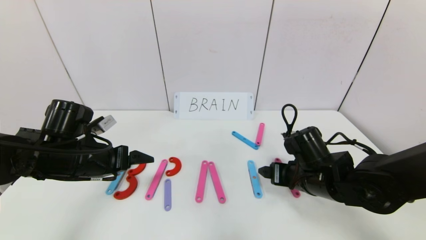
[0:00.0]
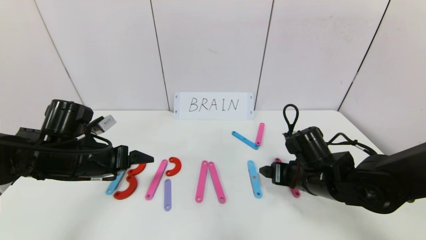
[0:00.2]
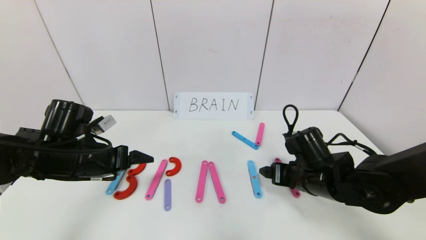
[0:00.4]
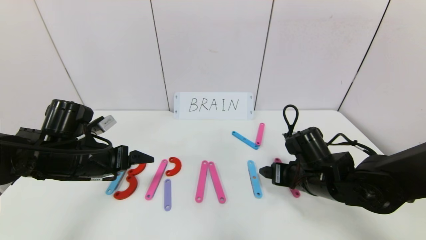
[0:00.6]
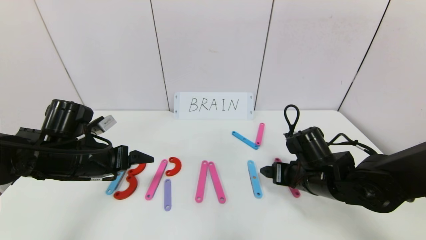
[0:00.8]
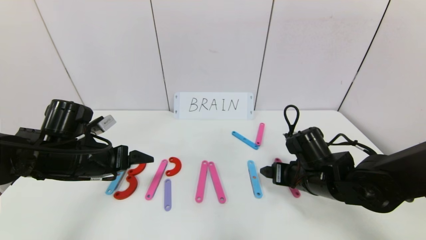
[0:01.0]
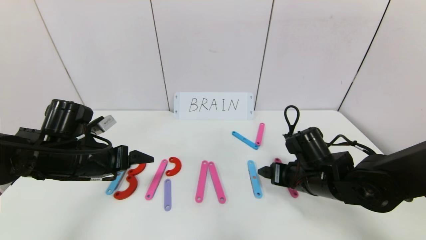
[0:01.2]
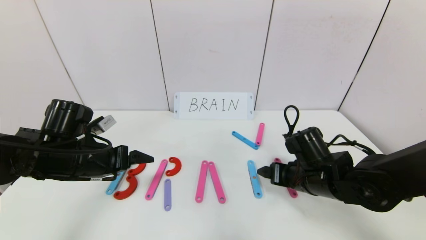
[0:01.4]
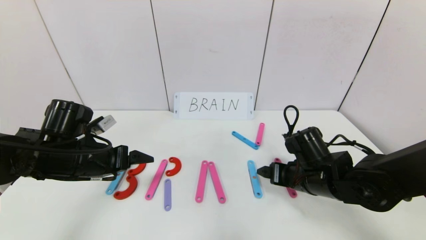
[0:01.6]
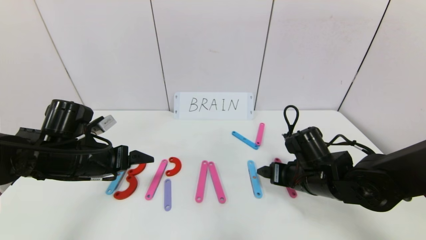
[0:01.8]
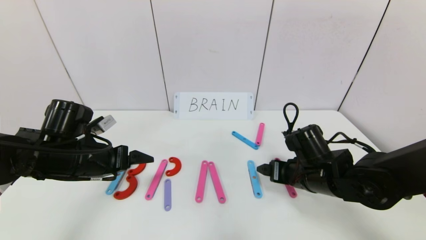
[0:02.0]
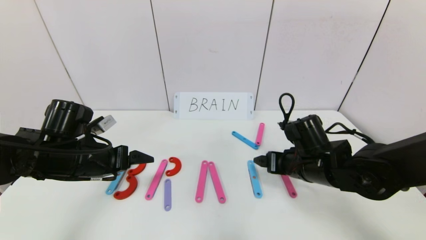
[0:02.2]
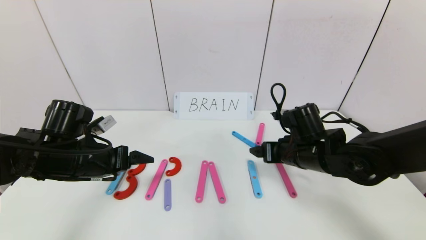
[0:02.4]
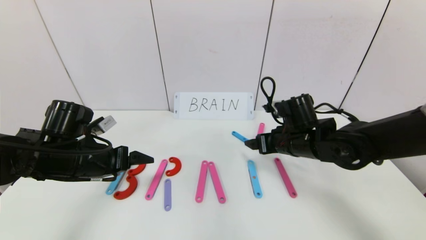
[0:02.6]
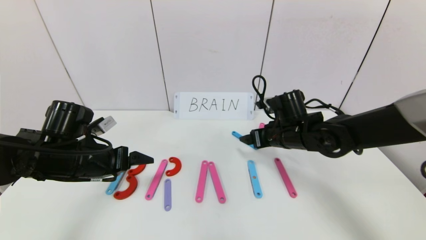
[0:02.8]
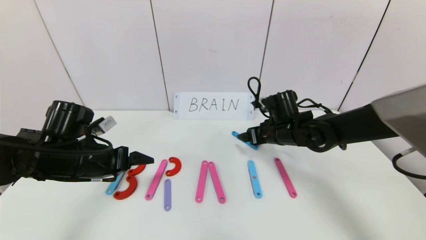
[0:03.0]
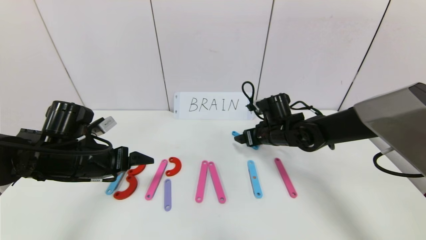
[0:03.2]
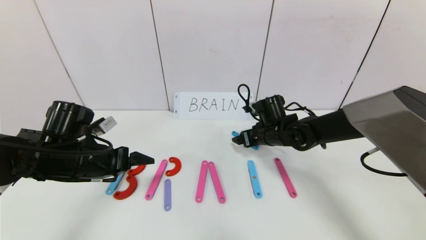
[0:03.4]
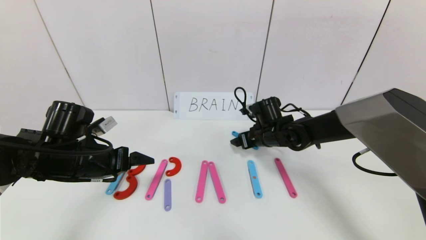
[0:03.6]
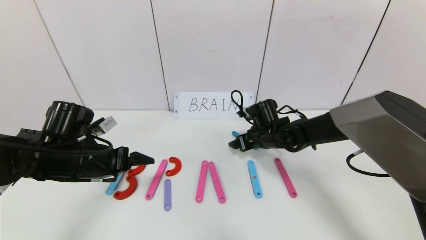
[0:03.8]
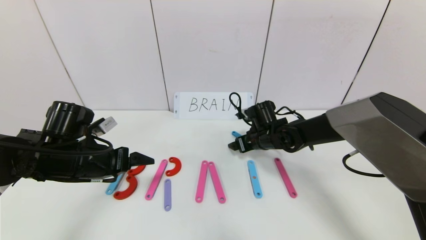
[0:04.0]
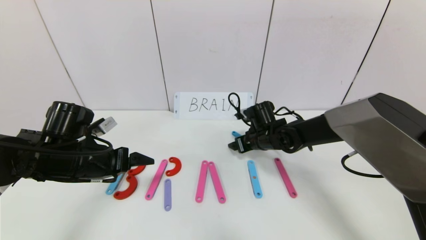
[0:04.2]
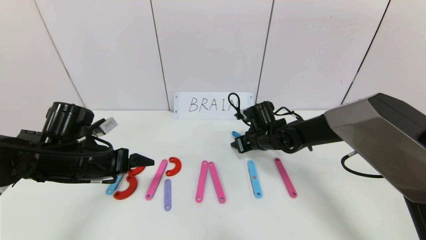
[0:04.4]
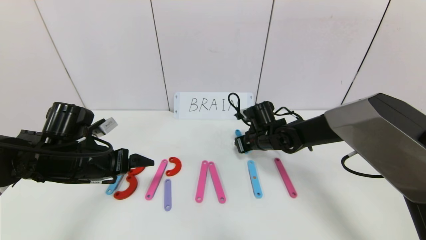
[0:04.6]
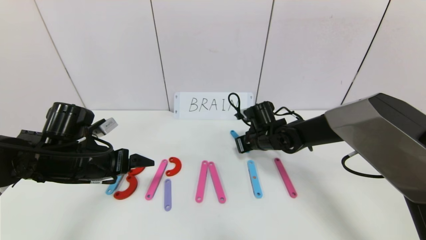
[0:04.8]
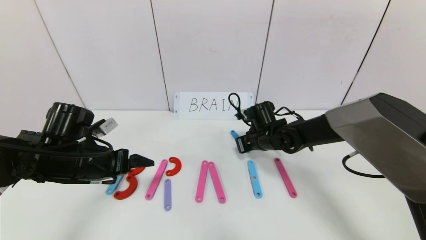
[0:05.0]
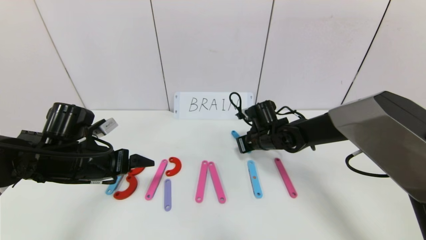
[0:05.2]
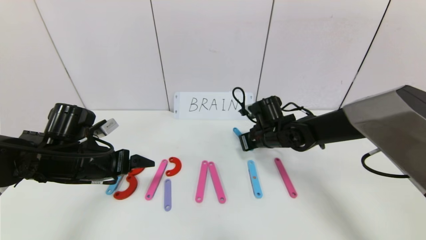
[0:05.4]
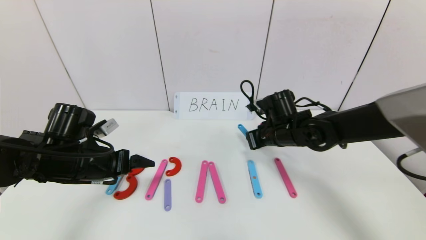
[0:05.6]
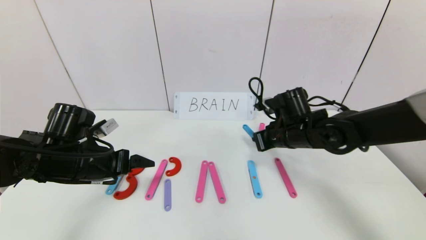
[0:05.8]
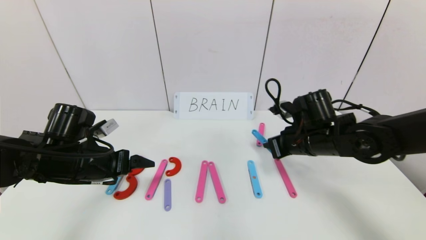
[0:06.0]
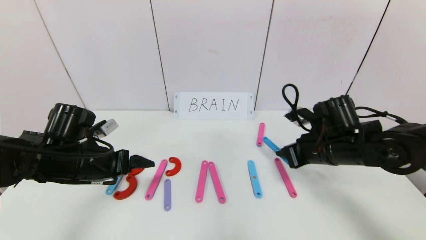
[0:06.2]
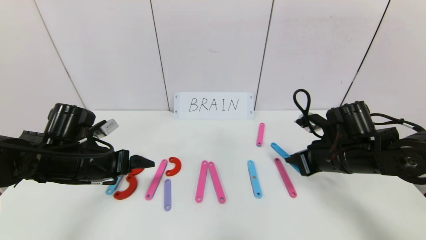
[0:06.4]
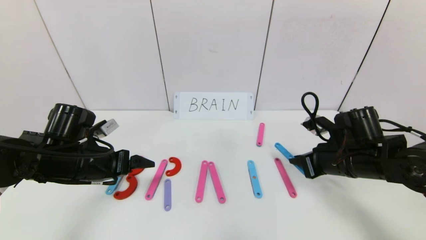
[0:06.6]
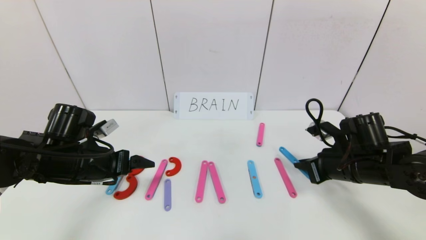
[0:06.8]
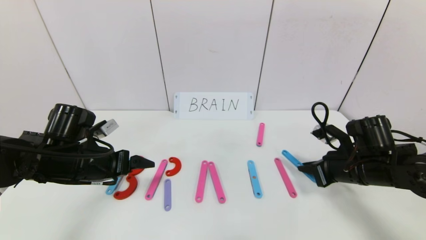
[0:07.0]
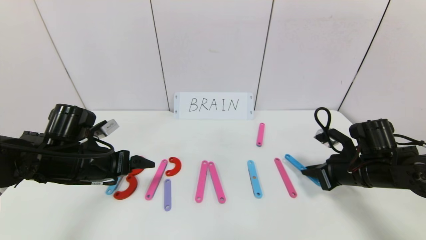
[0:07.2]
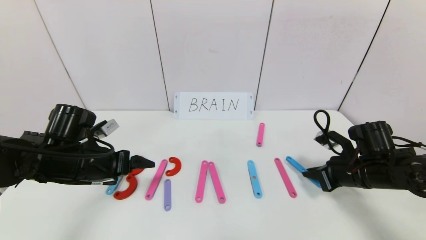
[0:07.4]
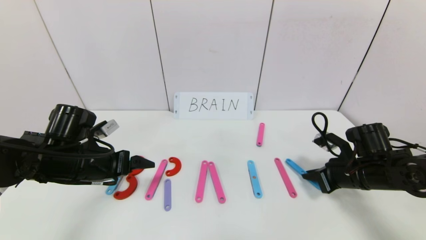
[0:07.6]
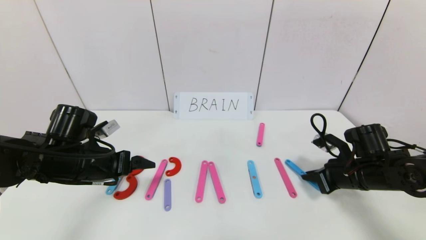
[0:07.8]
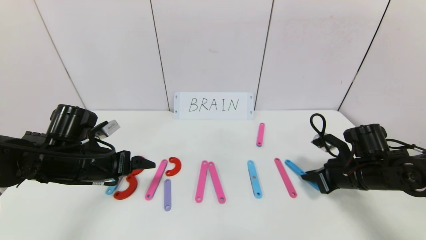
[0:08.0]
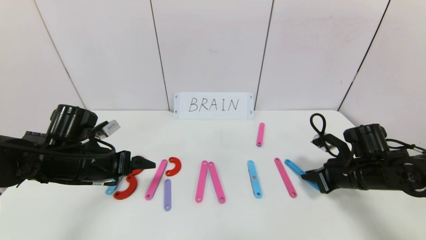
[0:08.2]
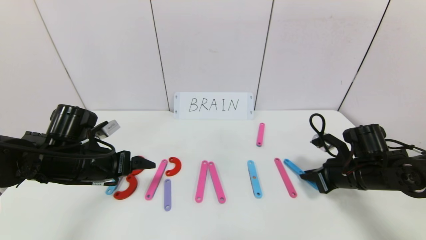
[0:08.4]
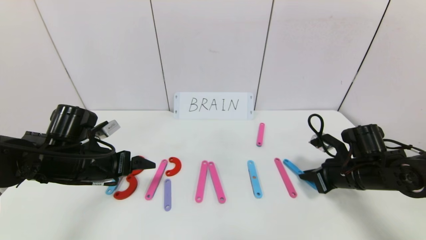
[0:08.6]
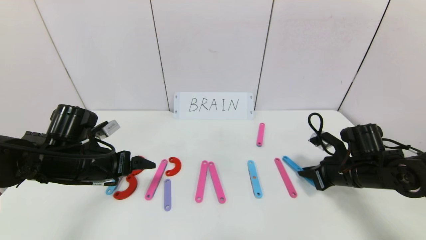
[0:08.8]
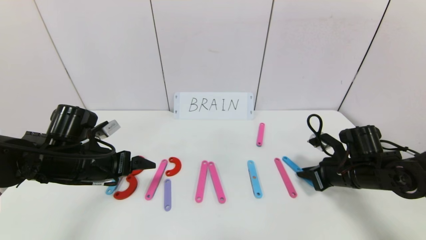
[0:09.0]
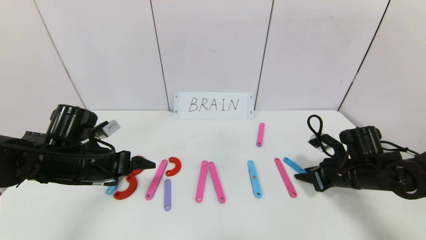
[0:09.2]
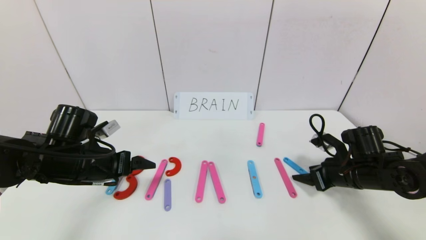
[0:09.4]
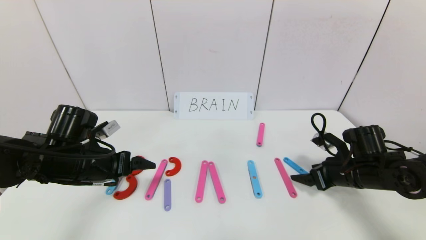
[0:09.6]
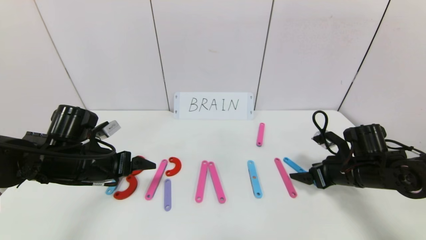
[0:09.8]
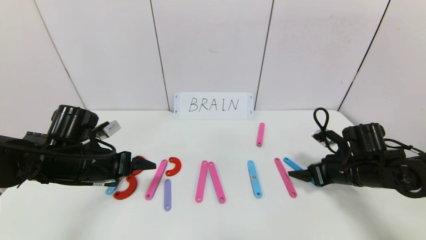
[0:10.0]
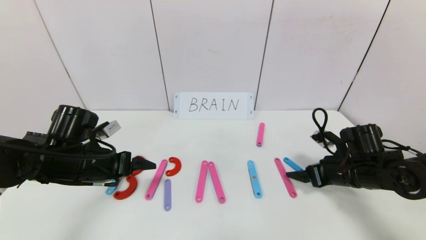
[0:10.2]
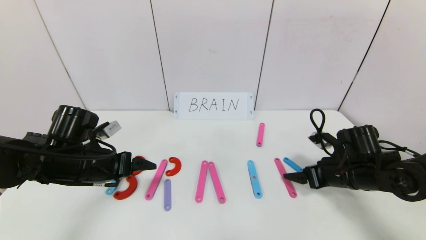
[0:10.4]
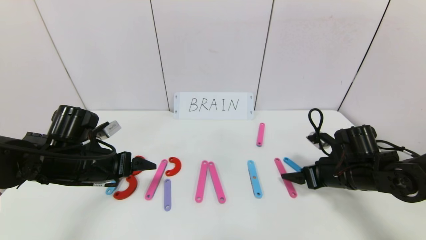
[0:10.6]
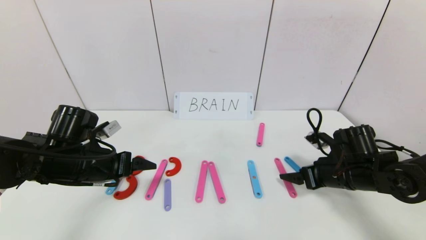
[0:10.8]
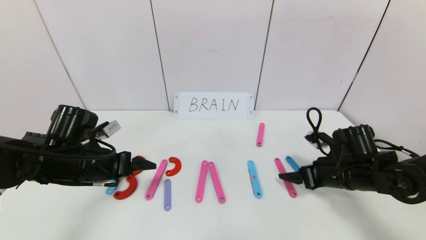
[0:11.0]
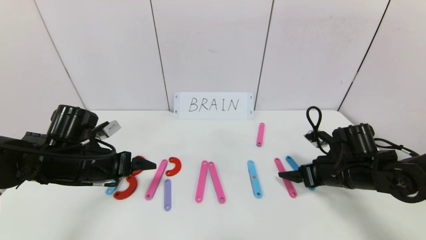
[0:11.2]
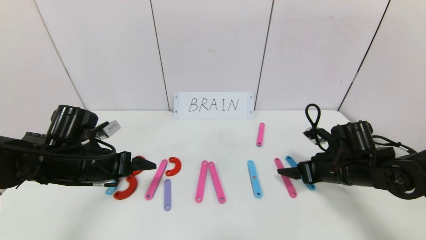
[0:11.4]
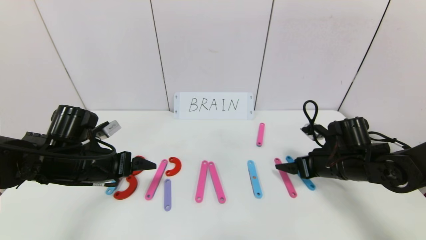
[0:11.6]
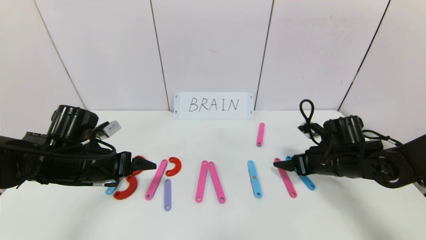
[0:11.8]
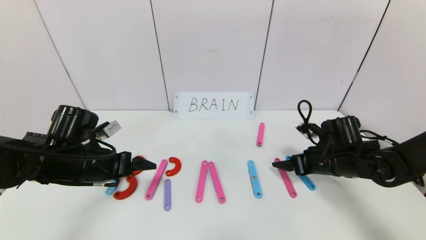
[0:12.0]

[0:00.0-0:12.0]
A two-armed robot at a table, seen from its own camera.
Task of the whole recording: rearrange the word baai as brain.
0:00.0 to 0:01.6: The two grippers keep their place.
0:01.6 to 0:03.0: The right gripper shifts roughly 10 cm forward.
0:03.0 to 0:04.4: The right gripper changes place by some 5 cm, and closes.
0:04.4 to 0:06.0: The right gripper shifts approximately 15 cm backward, to the right and upward, and closes its fingers.
0:06.0 to 0:07.6: The right gripper travels to the right and downward by approximately 10 cm.
0:07.6 to 0:09.0: The grippers make only small movements.
0:09.0 to 0:10.4: The right gripper opens up.
0:10.4 to 0:12.0: The grippers make only small movements.

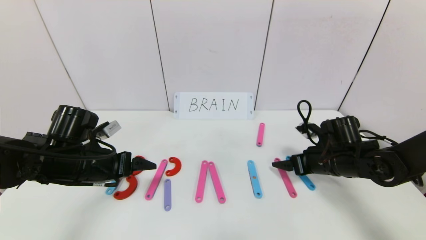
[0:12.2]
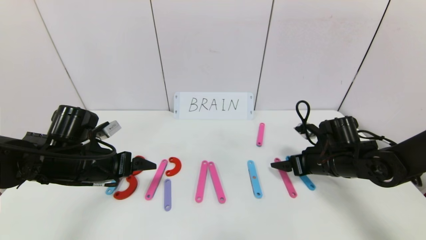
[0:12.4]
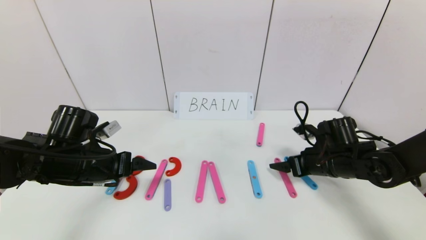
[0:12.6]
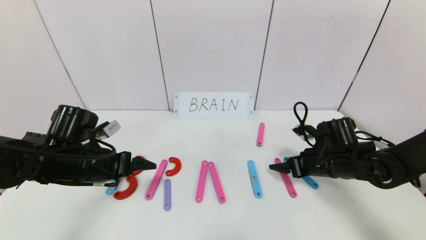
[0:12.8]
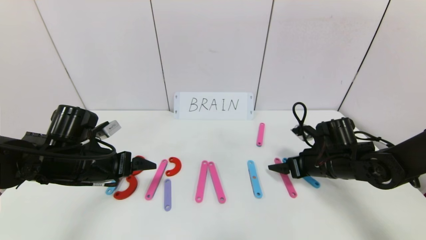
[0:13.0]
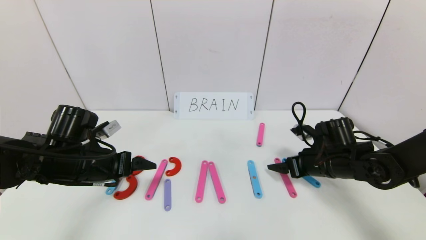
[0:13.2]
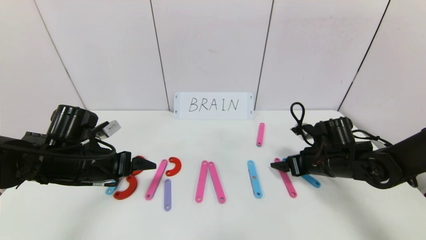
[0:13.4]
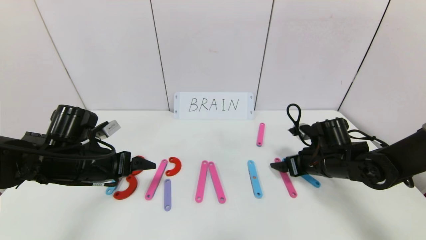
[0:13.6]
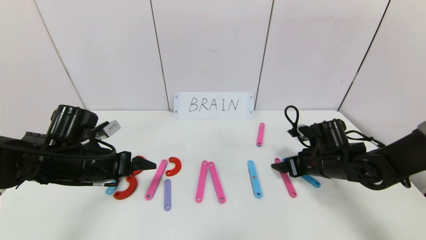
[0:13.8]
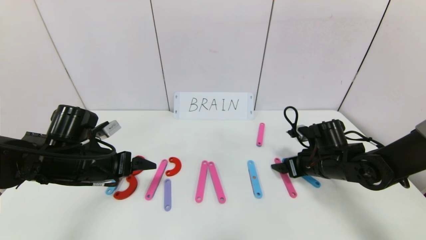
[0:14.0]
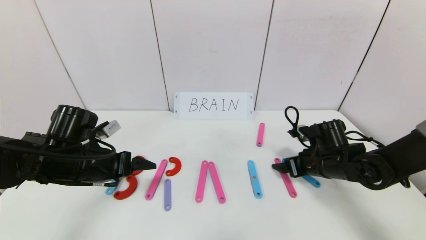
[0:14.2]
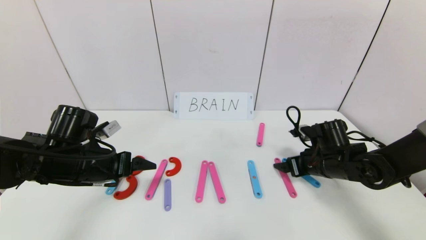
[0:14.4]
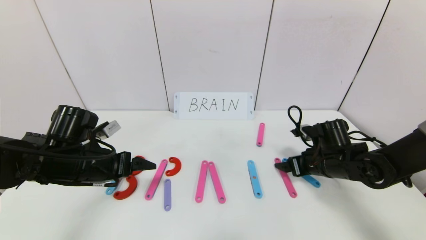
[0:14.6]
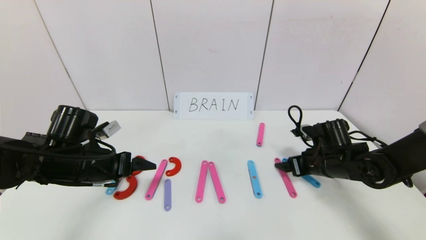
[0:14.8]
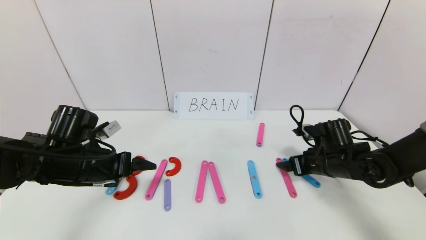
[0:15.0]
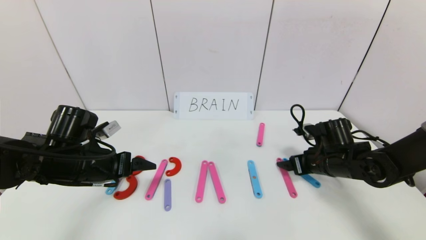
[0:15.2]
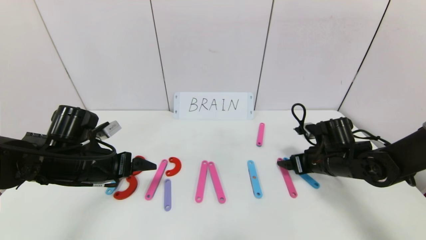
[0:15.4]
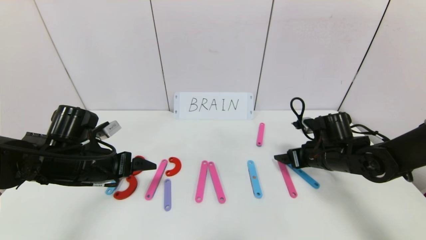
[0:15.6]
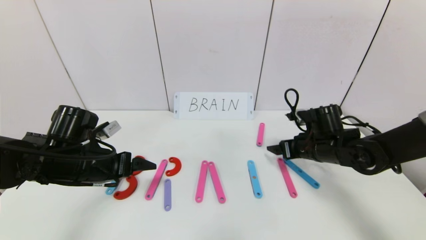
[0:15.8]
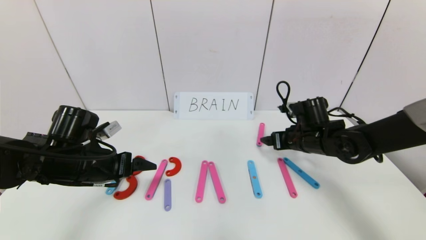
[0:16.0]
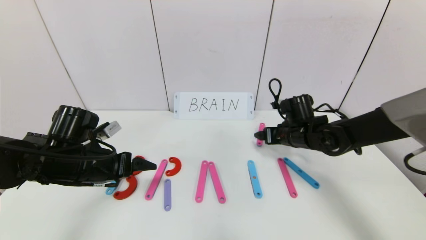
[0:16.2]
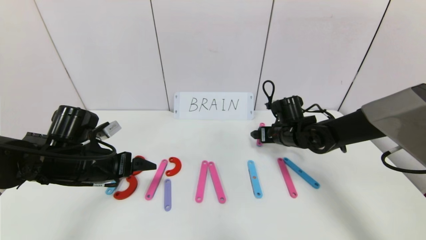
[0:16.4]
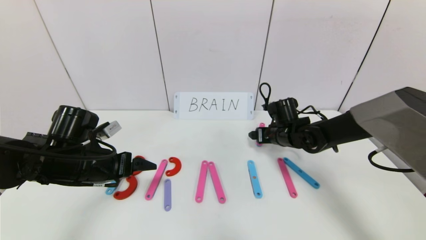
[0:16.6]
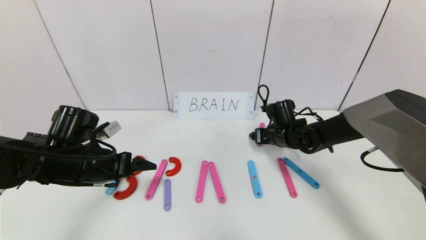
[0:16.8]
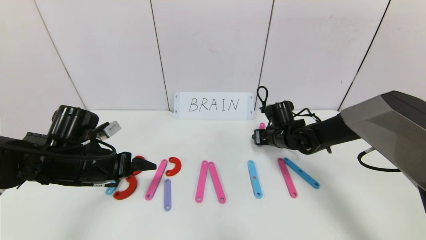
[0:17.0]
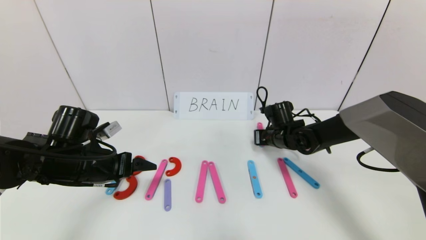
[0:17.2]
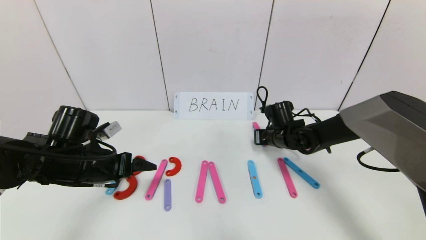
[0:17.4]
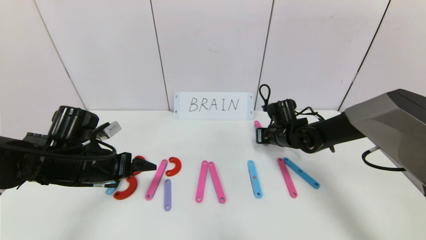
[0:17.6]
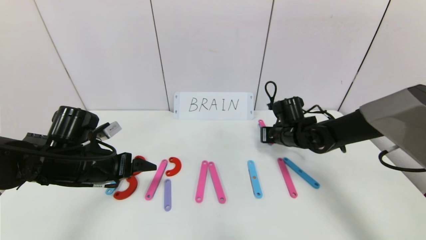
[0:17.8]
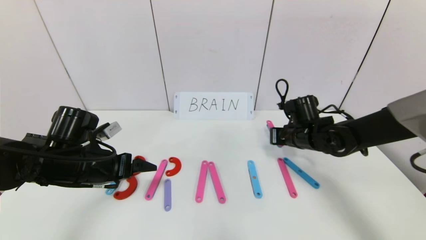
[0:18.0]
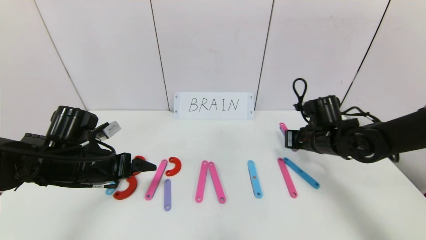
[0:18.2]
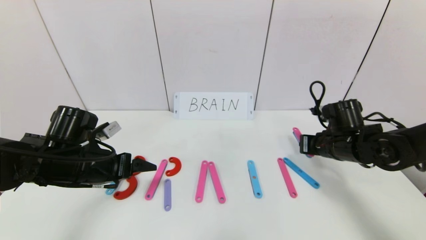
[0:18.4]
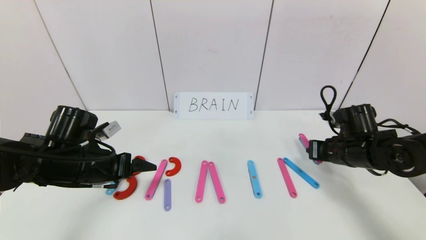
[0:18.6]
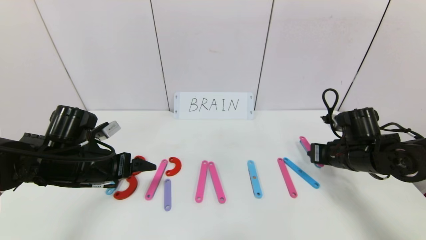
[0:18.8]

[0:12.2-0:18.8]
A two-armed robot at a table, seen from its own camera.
Task of the whole recording: rearrange the word baai as brain.
0:12.2 to 0:15.4: The grippers stay close to where they were, moving slightly.
0:15.4 to 0:17.2: The right gripper moves forward and to the left, some 15 cm, and closes its fingers.
0:17.2 to 0:18.8: The right gripper moves to the right and backward, roughly 15 cm.
